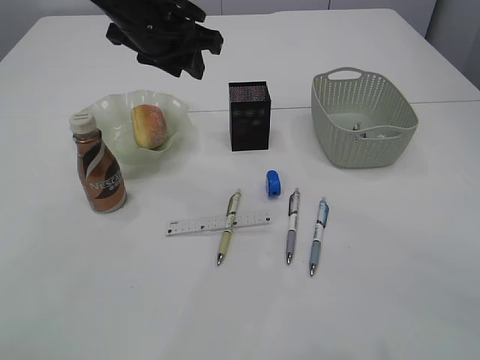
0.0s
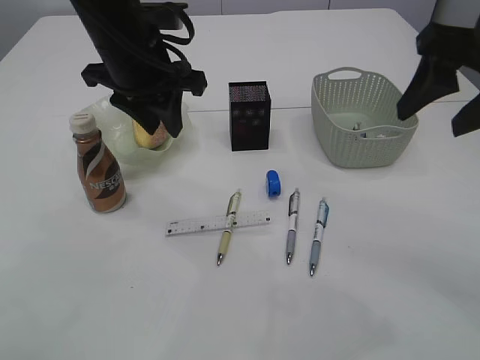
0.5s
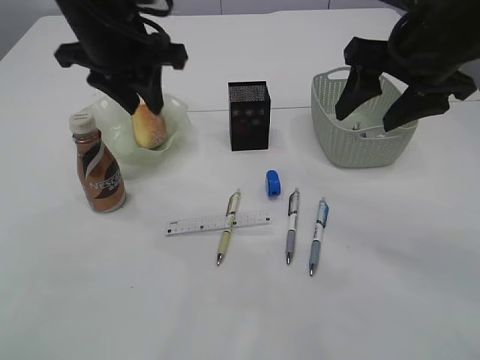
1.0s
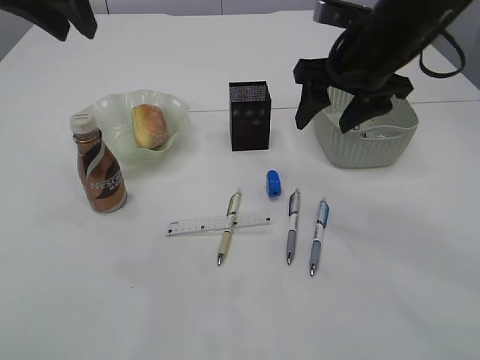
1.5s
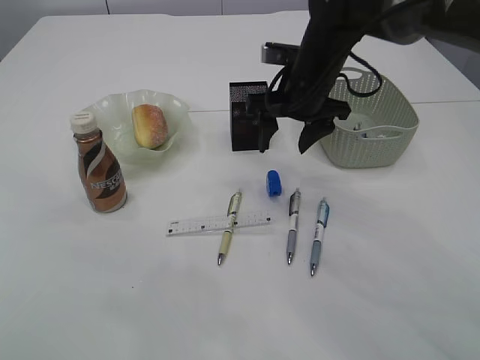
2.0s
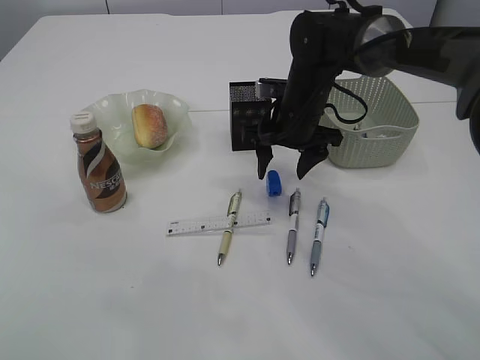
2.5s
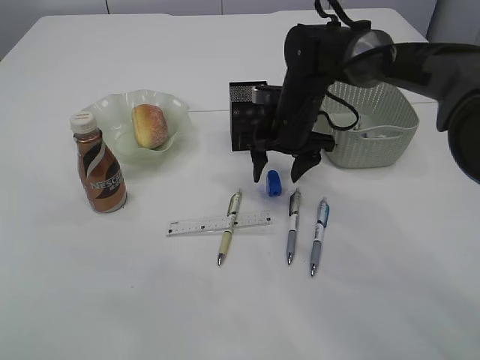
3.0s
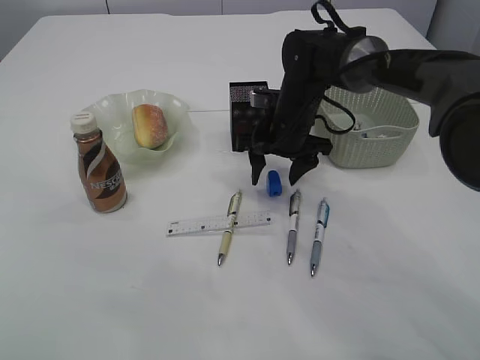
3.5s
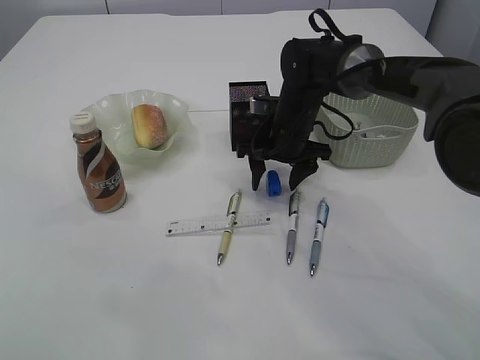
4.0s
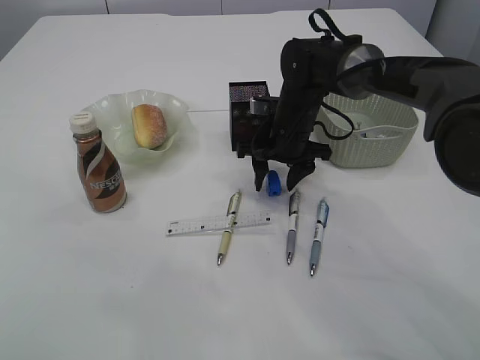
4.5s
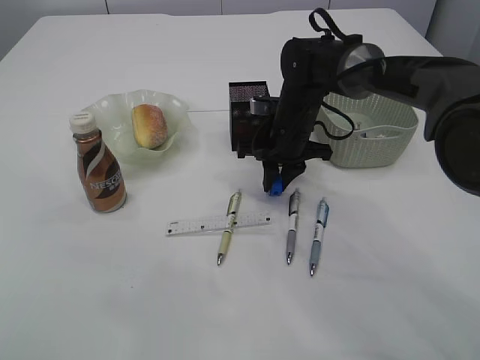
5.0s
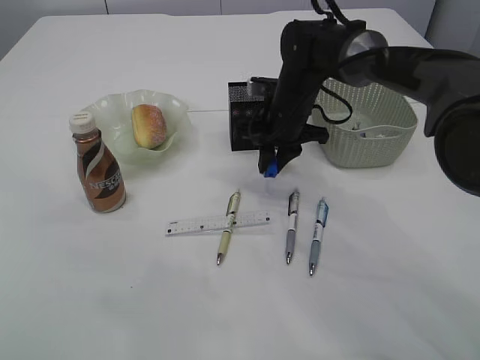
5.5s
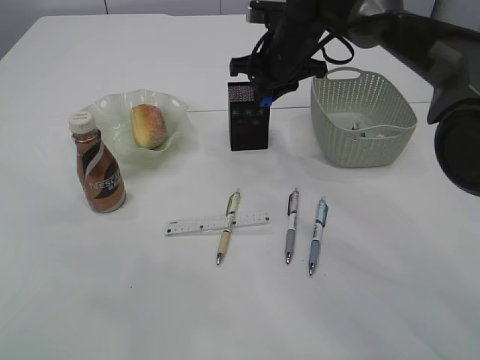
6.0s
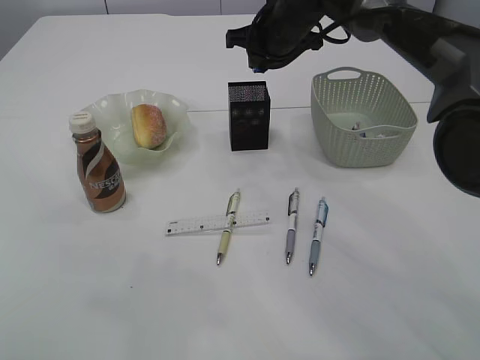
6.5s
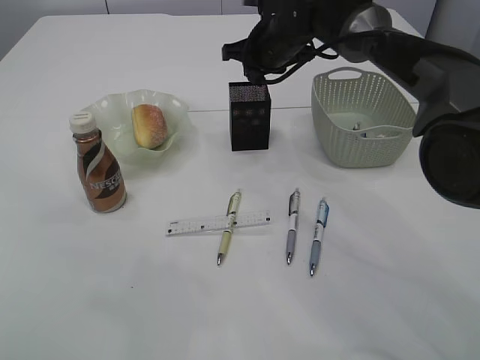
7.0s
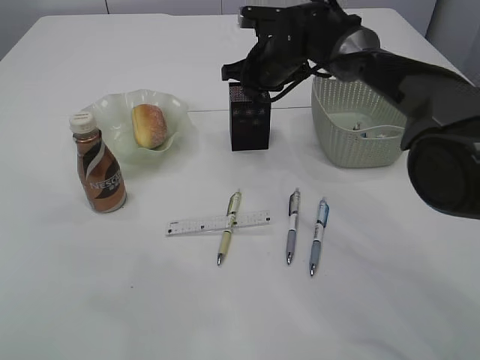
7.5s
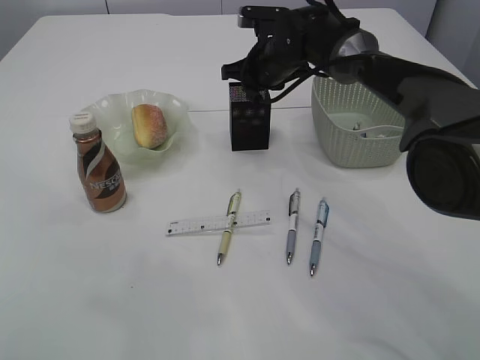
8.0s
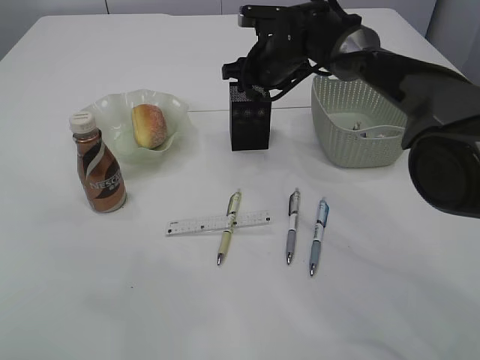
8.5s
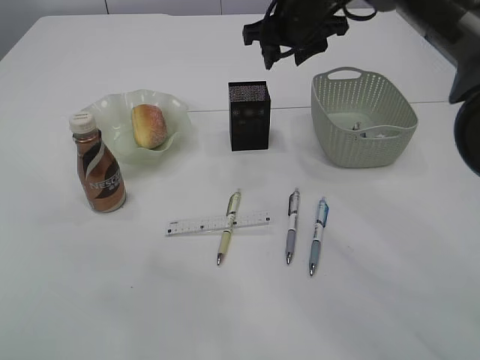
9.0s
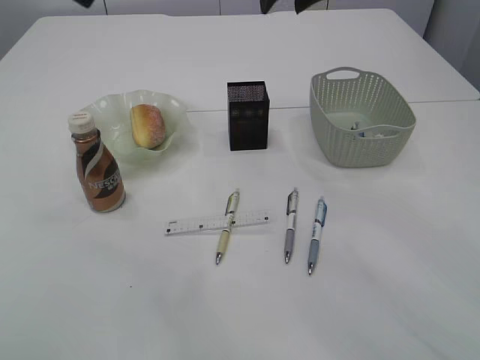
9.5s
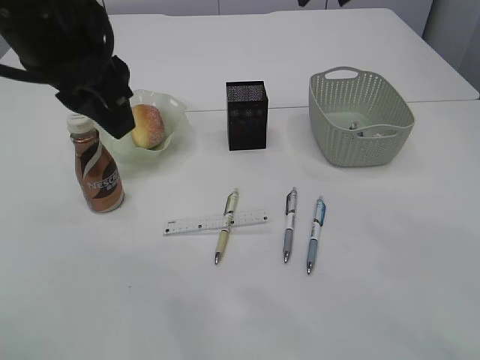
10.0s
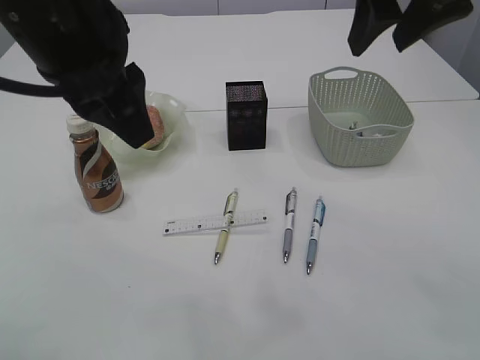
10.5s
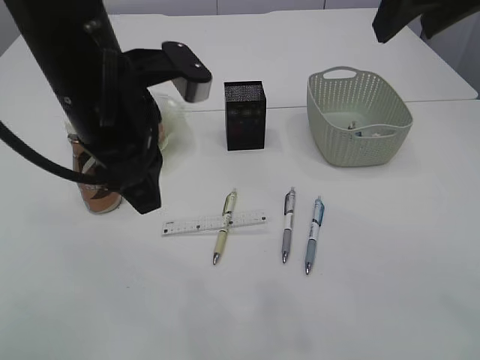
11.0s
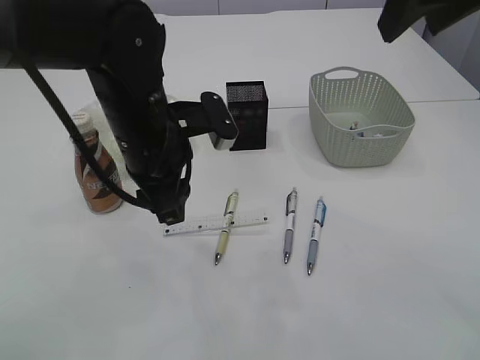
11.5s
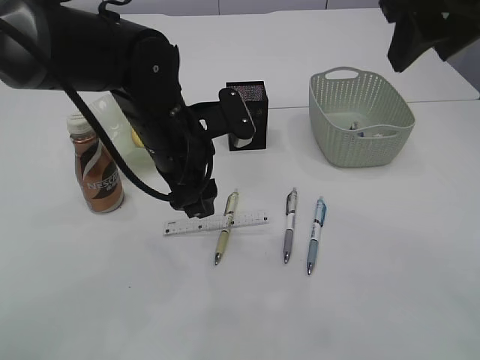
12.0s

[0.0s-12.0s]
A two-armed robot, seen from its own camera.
Step, 0.0s to 5.5s: Pick up the blue pencil sharpener.
Step, 6.0s to 8.5s: Place the blue pencil sharpener into the pen holder.
0.0s to 2.0s: The left gripper moves upward, to the left and backward, about 20 cm. Meanwhile the right gripper goes roughly 30 cm forward, downward and to the left.
2.0s to 4.0s: The right gripper travels downward by some 10 cm.
4.0s to 6.0s: The right gripper is displaced upward by roughly 10 cm, and closes up.
6.0s to 8.0s: The right gripper shifts by about 5 cm.
8.0s to 10.0s: The left gripper goes roughly 10 cm downward and to the right, while the right gripper heads upward and backward, covering some 25 cm, and opens up.
10.0s to 12.0s: The right gripper heads backward, covering about 10 cm, while the left gripper moves downward, some 15 cm, and opens.

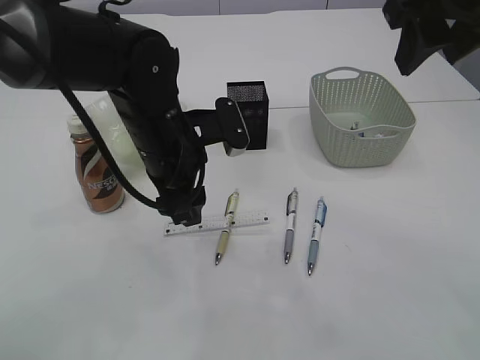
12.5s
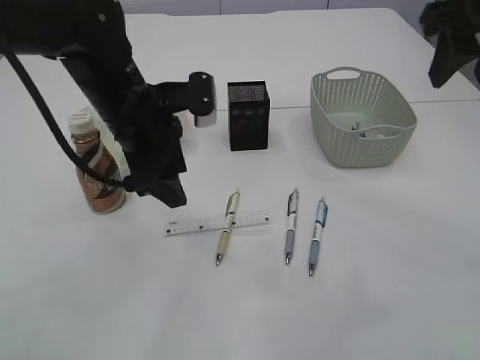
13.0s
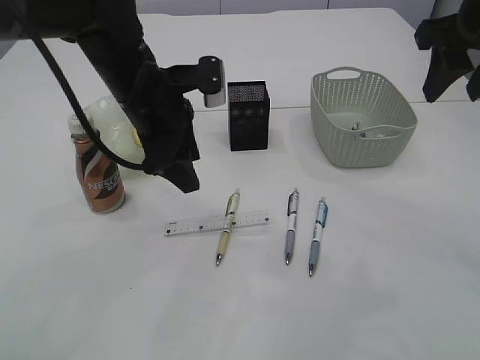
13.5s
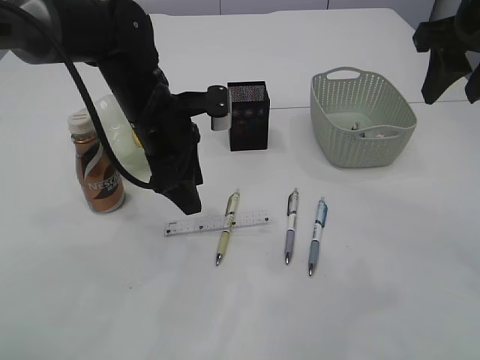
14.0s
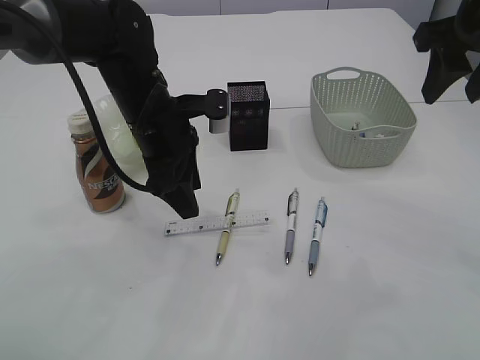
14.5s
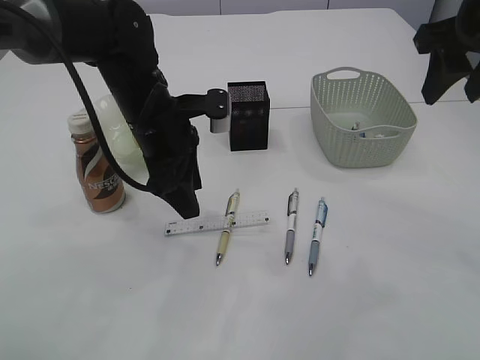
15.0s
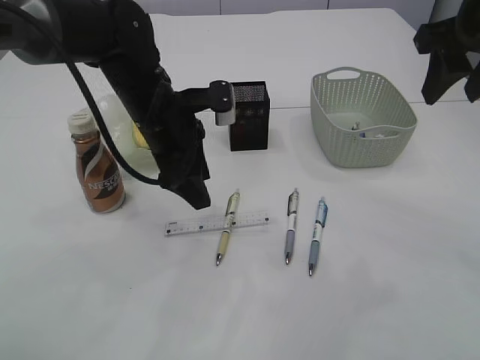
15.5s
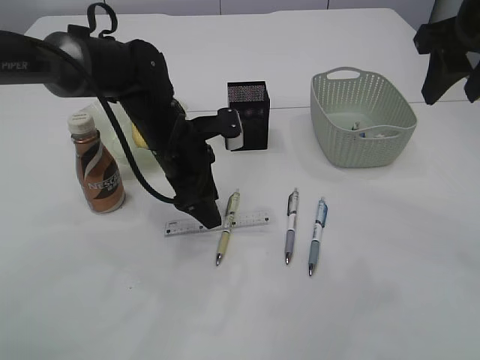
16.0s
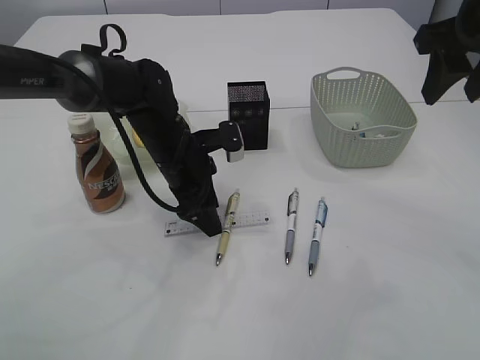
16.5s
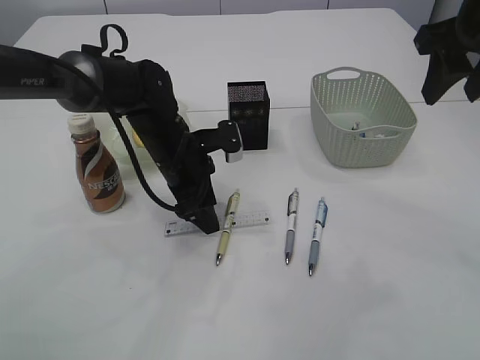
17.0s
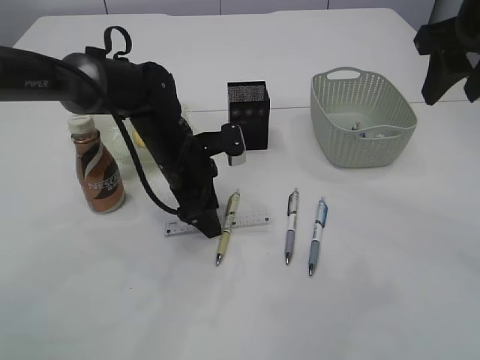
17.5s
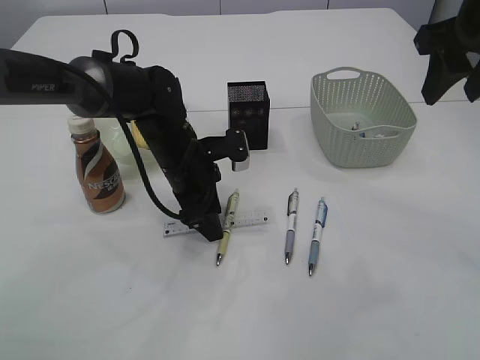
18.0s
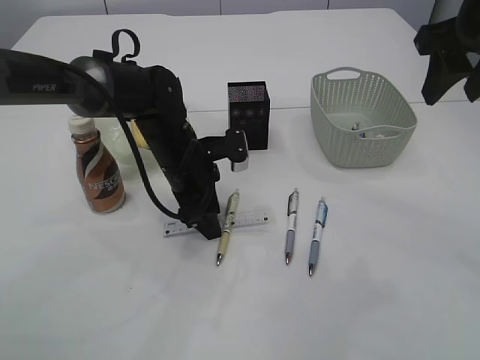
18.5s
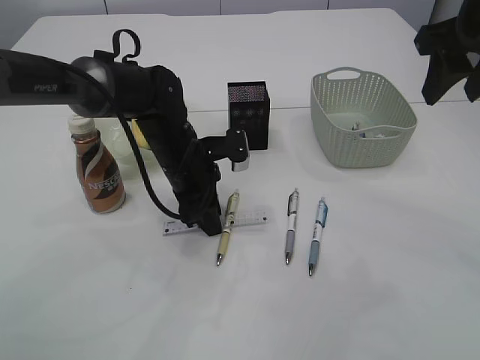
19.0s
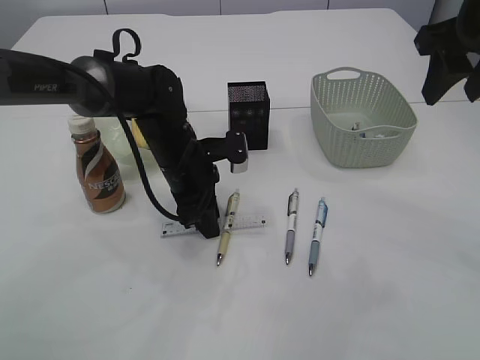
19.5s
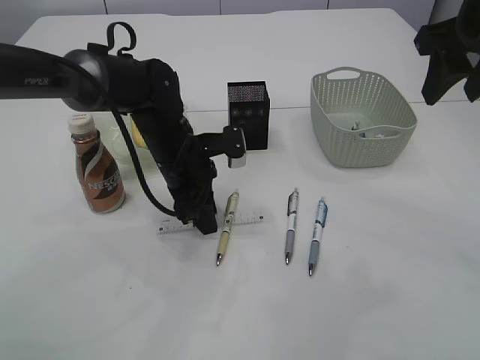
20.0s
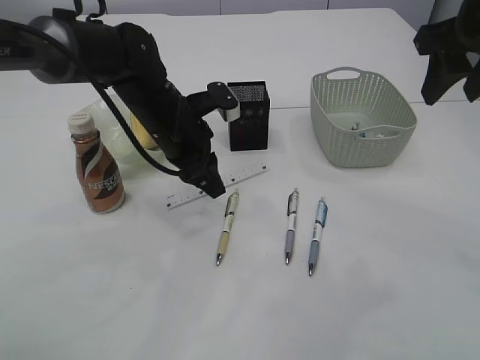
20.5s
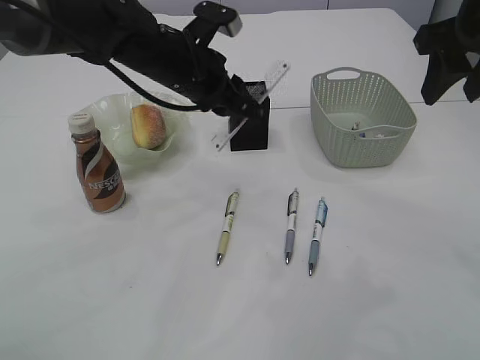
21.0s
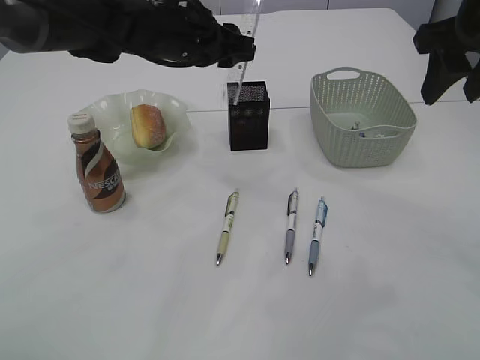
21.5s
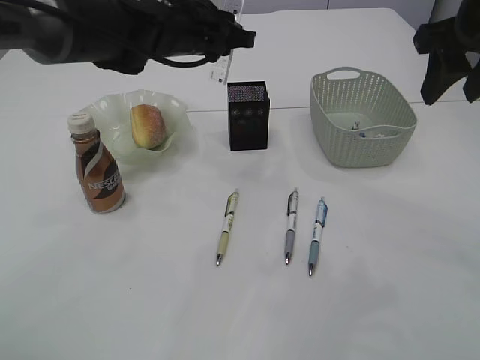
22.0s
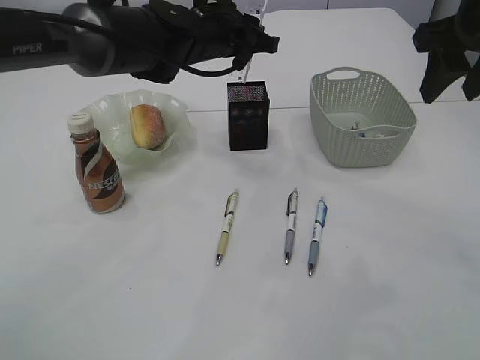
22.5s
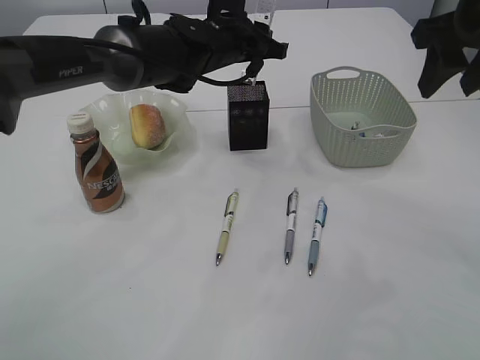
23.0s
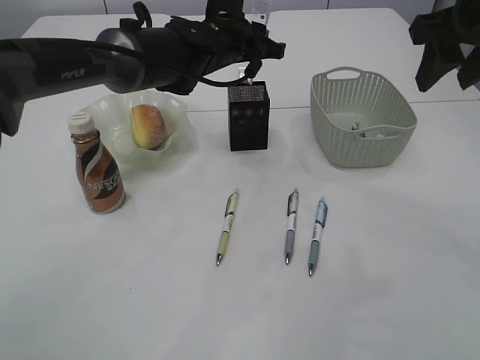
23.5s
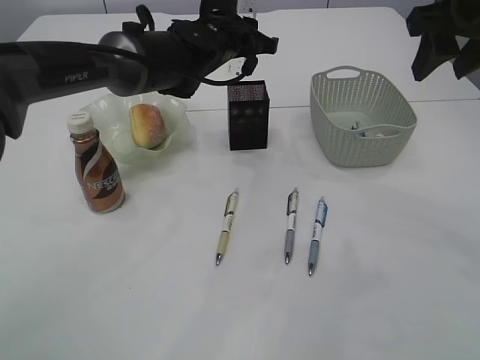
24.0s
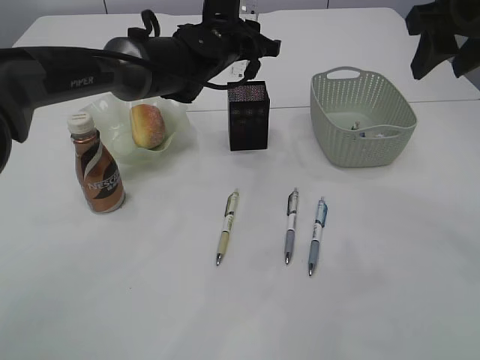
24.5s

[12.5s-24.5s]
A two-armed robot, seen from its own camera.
Step, 12.5s to 20.5s: pick up the ruler.
12.5s to 14.5s: The left gripper shifts by about 5 cm. Meanwhile the right gripper travels to the right by approximately 5 cm.
14.5s to 16.5s: The left gripper moves downward, about 5 cm.
16.5s to 18.5s: The grippers move only a little.
18.5s to 20.5s: The left gripper heads upward, covering about 5 cm, and closes.
20.5s to 22.5s: The left gripper is displaced upward and forward by some 10 cm.
22.5s to 24.5s: The grippers make only small movements.

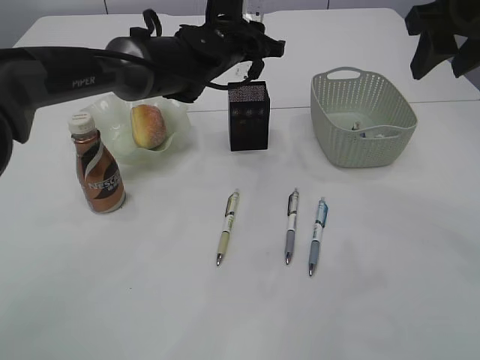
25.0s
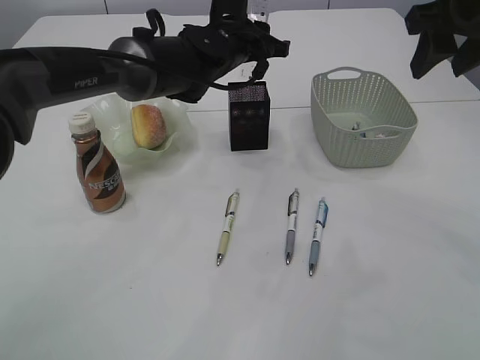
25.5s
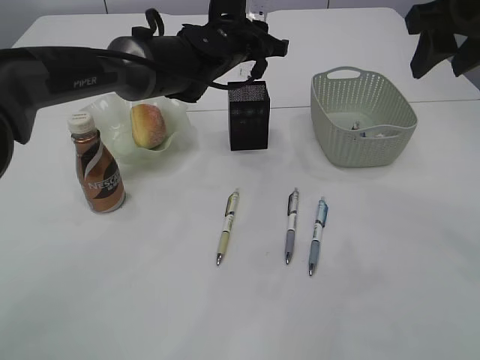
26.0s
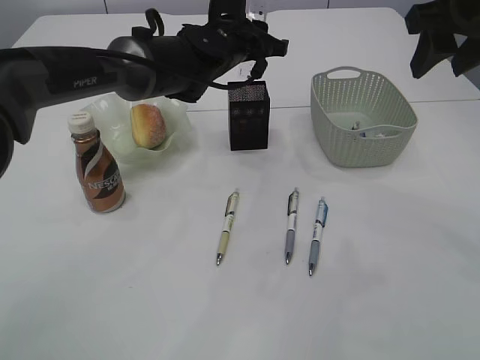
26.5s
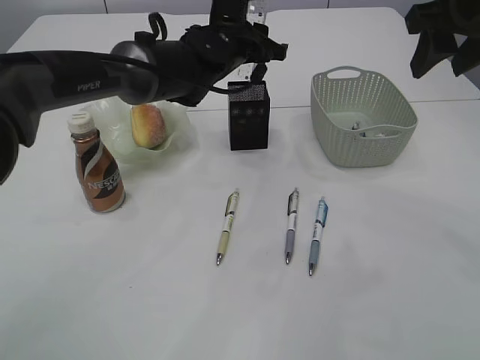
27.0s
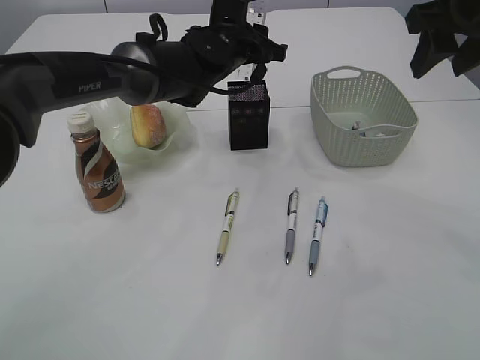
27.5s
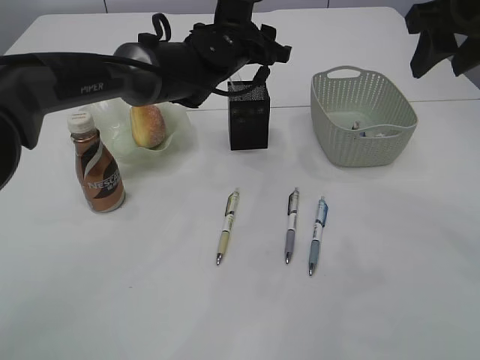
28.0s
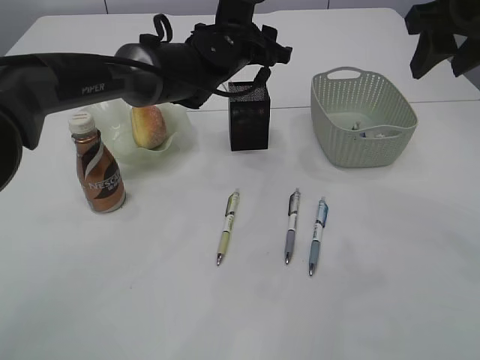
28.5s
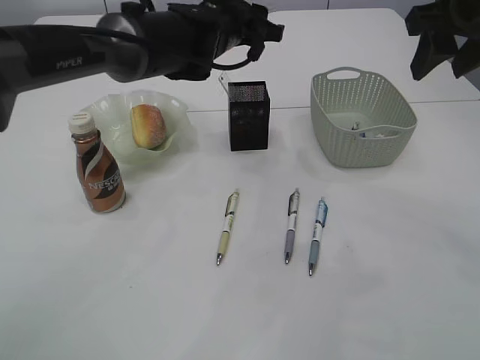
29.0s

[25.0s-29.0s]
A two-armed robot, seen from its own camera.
Step, 25.0s to 28.5s: Place the ruler into the pen holder.
25.0s to 27.0s: Both grippers stay about where they are.
27.0s to 29.0s: There are only small adjustments of the grippers.
